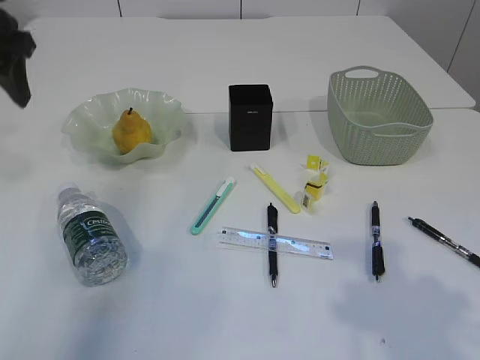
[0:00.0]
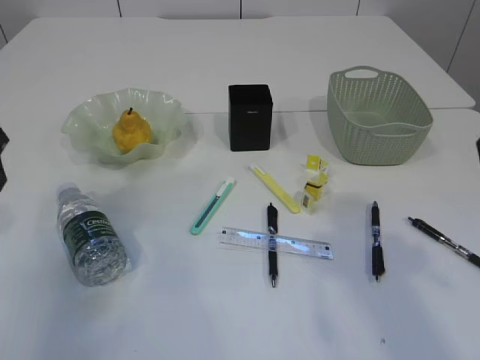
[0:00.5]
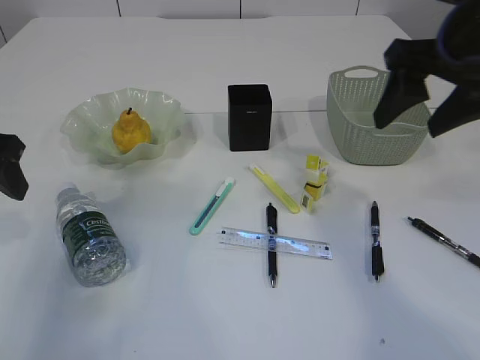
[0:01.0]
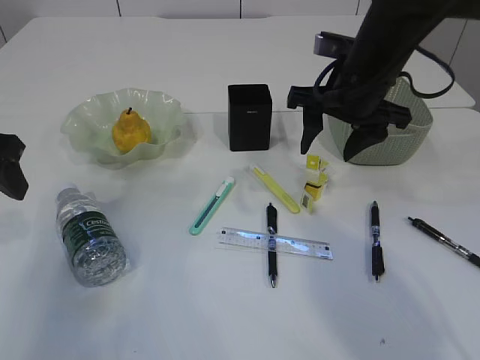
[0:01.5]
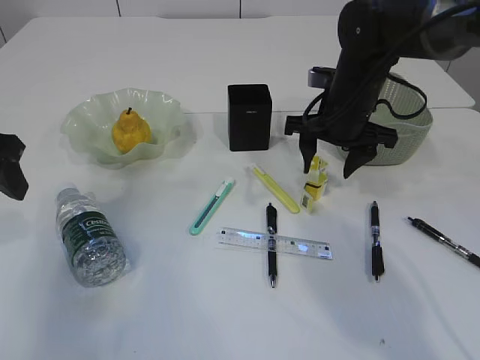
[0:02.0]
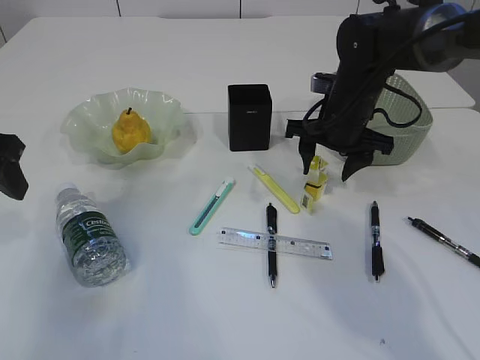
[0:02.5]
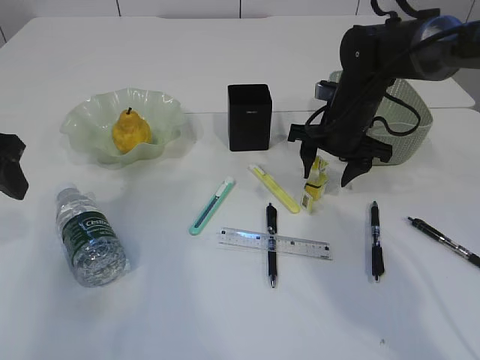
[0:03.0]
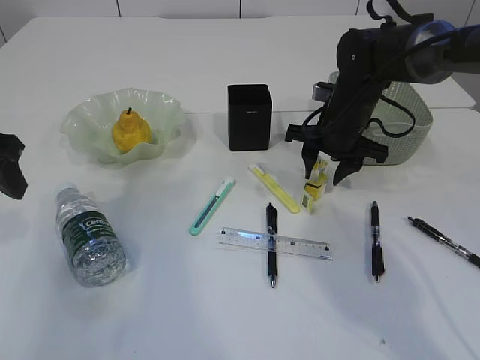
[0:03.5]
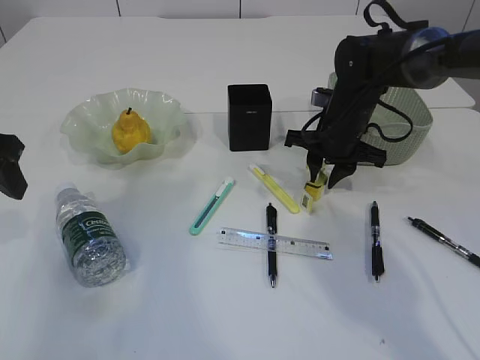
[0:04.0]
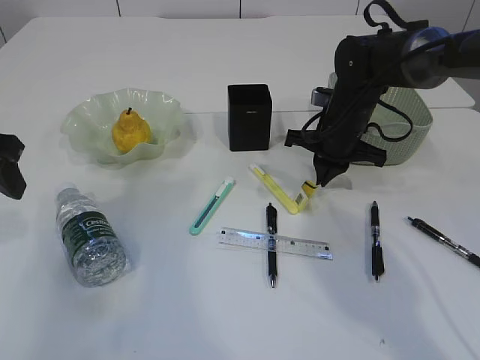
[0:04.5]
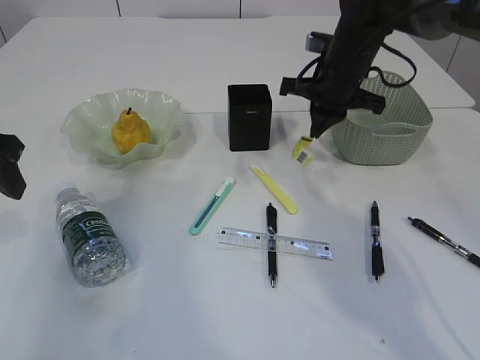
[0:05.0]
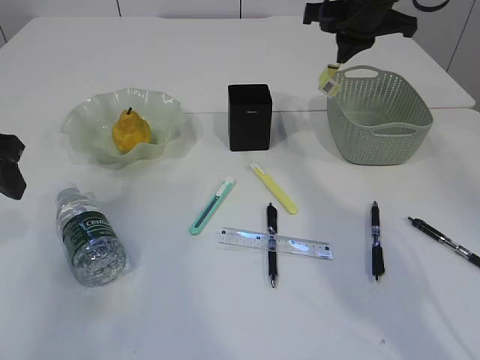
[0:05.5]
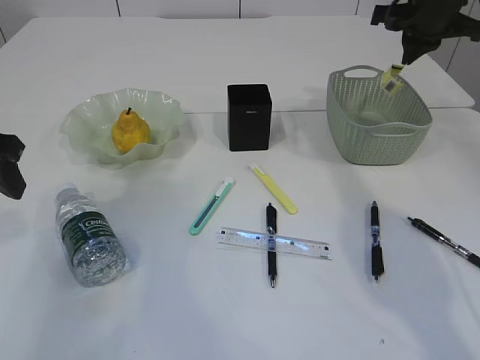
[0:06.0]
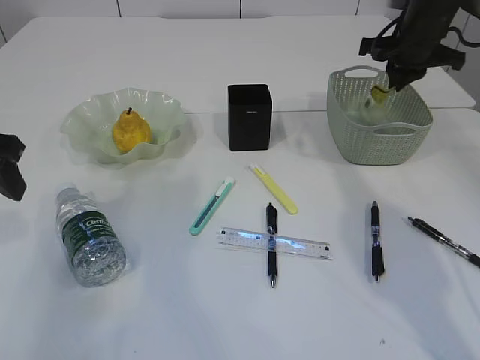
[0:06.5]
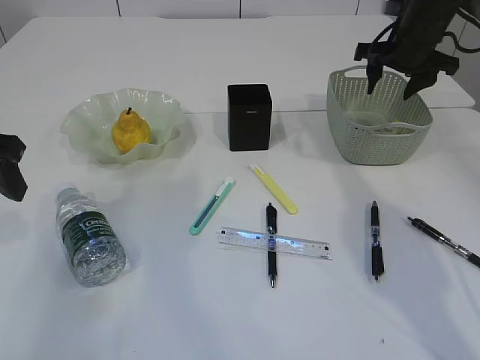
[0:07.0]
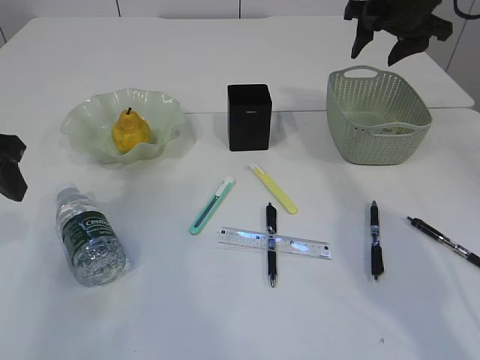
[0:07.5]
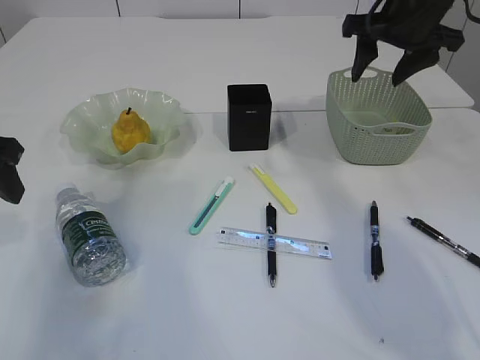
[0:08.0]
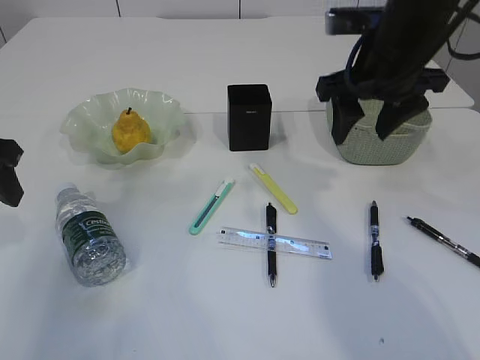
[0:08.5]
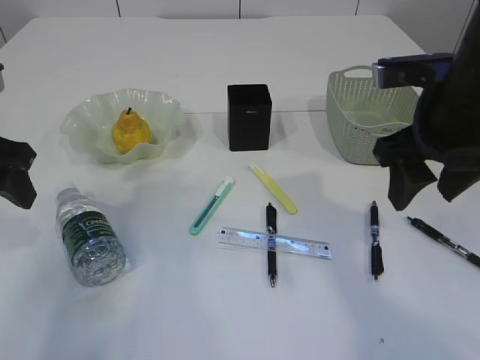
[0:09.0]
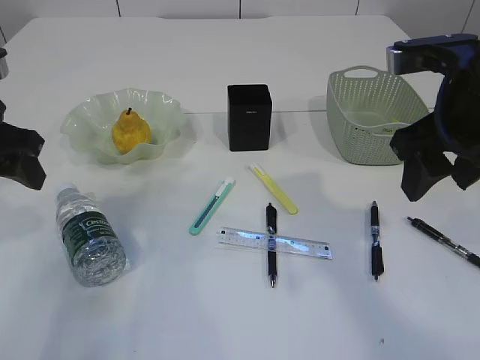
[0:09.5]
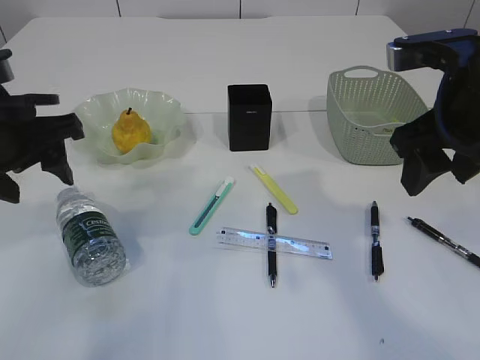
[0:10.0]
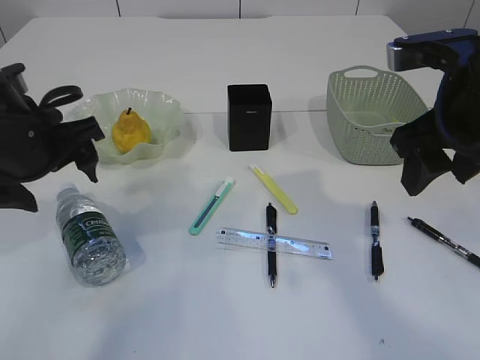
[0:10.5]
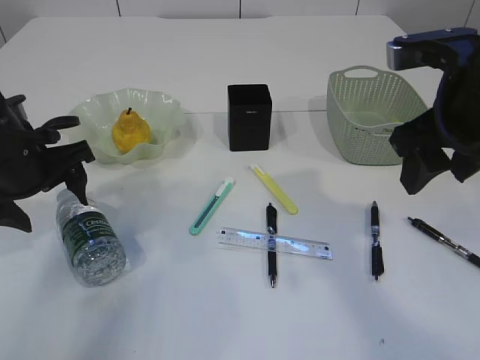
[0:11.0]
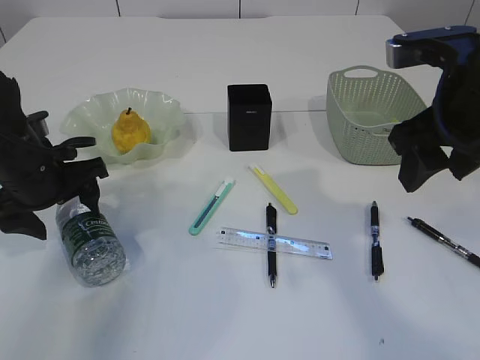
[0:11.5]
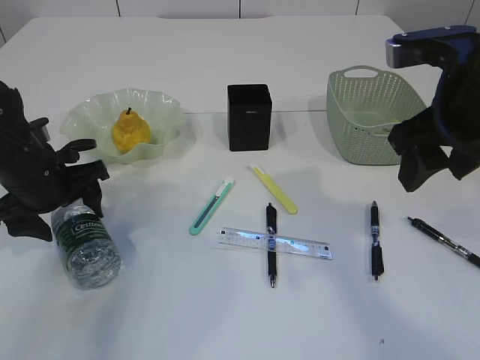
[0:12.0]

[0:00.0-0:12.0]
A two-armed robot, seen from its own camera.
Step, 0.0 to 5.0 s: Pick up the waste paper.
Step, 5.5 to 8.0 s: Place the waste paper in the basket.
0.0 to 2.0 s: The left gripper heads backward and downward, covering roughly 10 cm, while the right gripper heads forward and downward, covering about 30 cm.
2.0 to 4.0 s: The right gripper changes place by some 5 cm, and closes up.
4.0 to 6.0 s: The right gripper is displaced upward and to the right by approximately 20 cm.
6.0 to 8.0 s: The right gripper travels to the left and backward by some 5 cm, and opens its fingers.
8.0 to 10.0 s: The right gripper moves backward, about 15 cm; the left gripper is displaced to the right by approximately 5 cm.
10.0 to 12.0 s: The left gripper goes some 10 cm downward and forward.

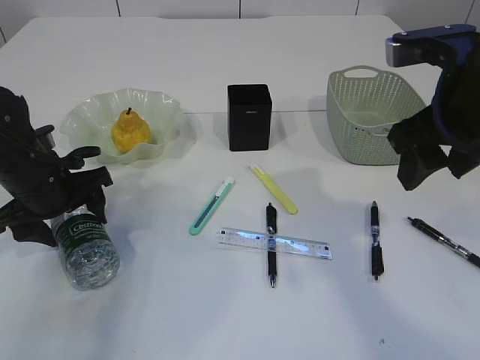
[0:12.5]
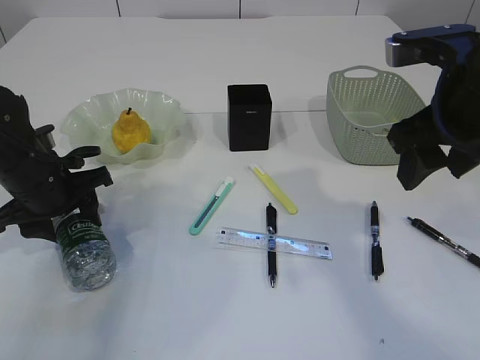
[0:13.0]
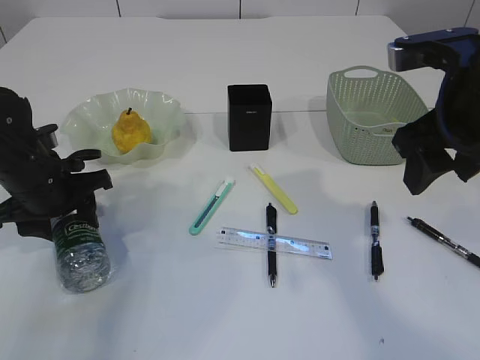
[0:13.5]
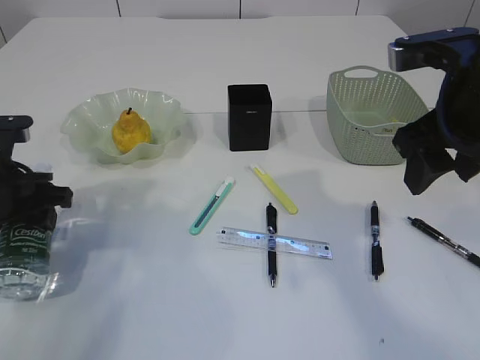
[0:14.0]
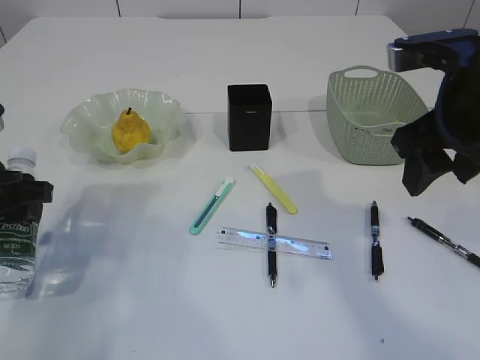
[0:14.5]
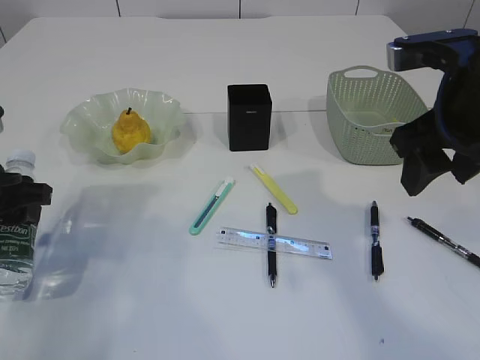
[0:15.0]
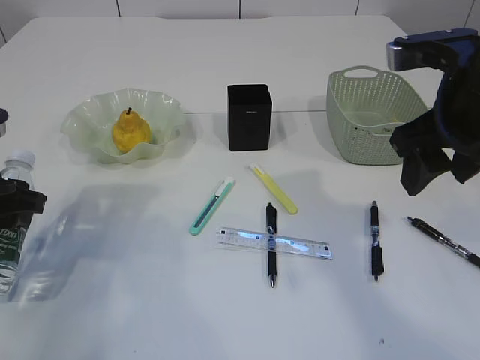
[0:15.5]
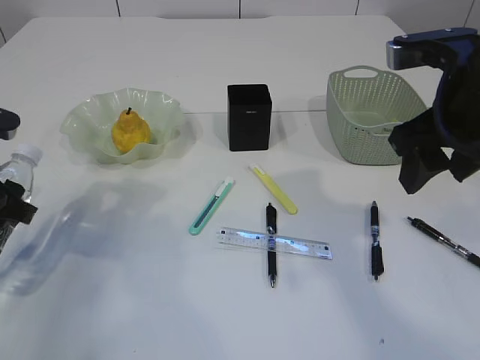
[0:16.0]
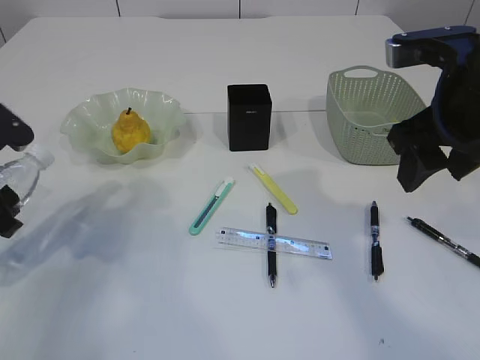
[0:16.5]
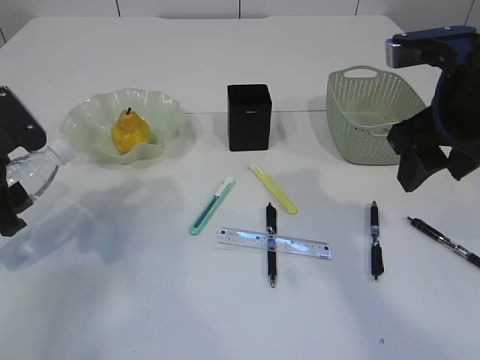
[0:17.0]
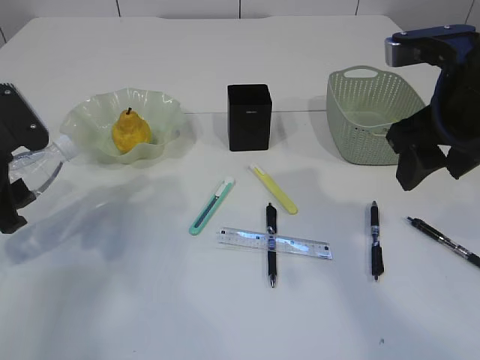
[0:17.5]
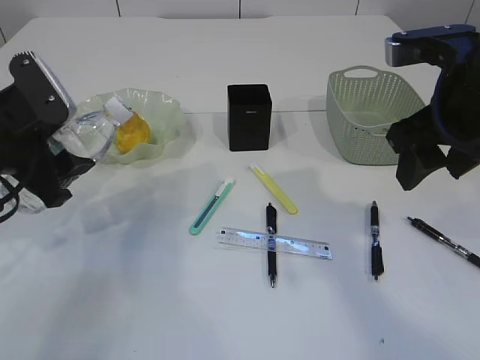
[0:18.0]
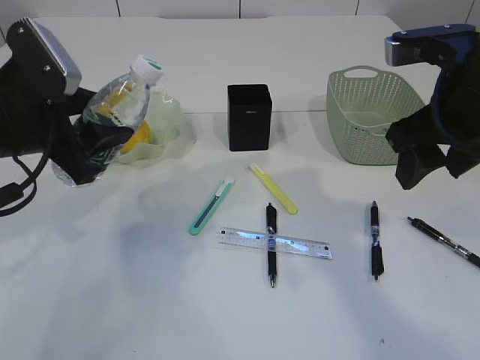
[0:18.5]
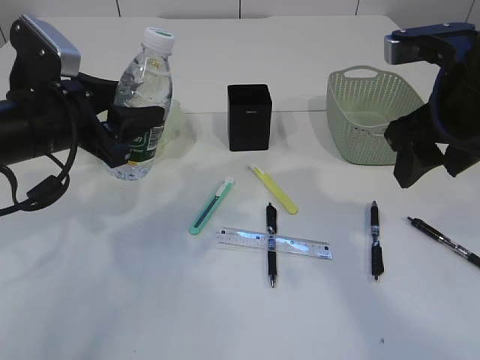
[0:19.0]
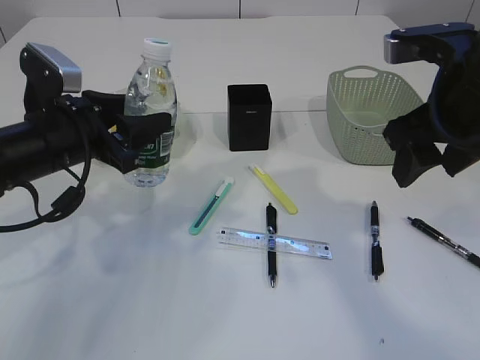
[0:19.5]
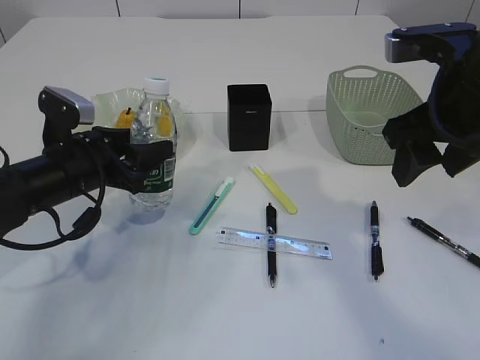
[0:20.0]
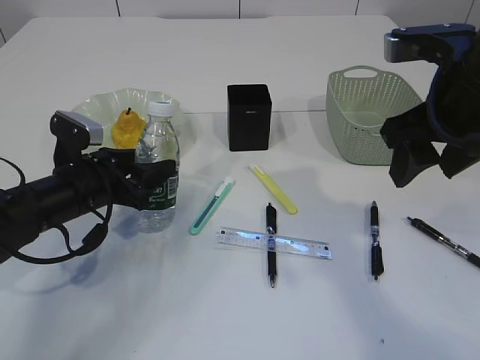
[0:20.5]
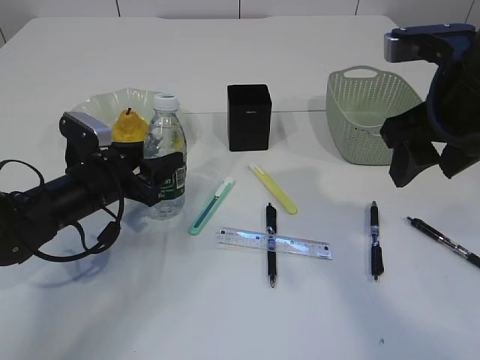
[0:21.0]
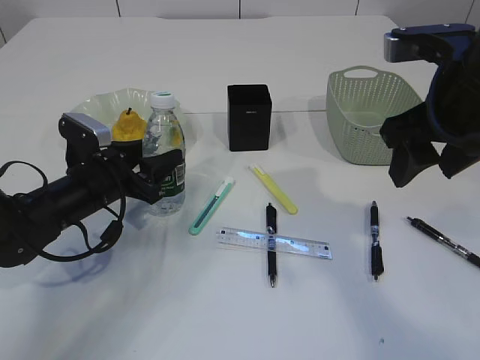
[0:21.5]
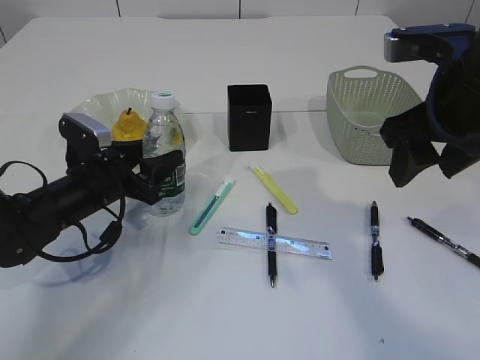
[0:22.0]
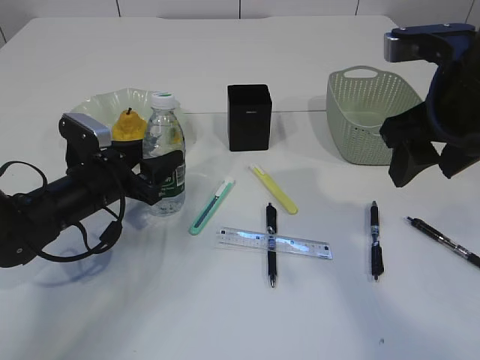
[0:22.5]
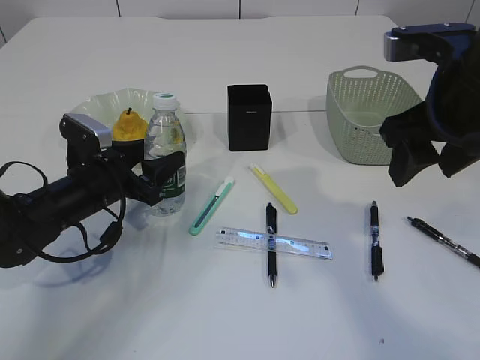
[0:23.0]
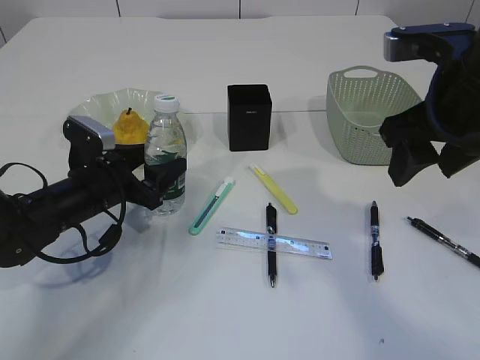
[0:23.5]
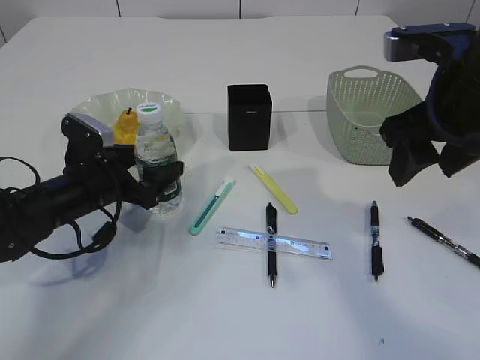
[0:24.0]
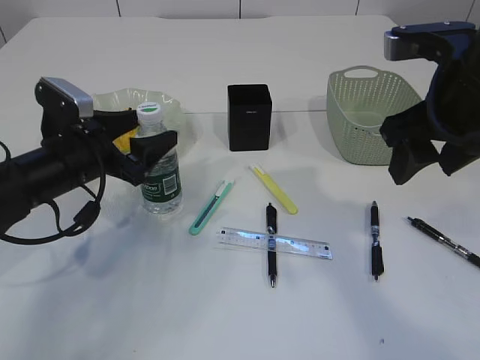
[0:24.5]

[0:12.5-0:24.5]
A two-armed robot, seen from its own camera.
12.5 to 14.5 s: The left gripper shifts some 5 cm backward.
16.5 to 18.5 s: The left gripper travels to the right by roughly 5 cm.
18.5 to 20.5 s: The left gripper heads downward, covering some 15 cm.
20.5 to 22.5 s: The grippers move only a little.
22.5 to 24.5 s: The left gripper moves upward, some 5 cm.

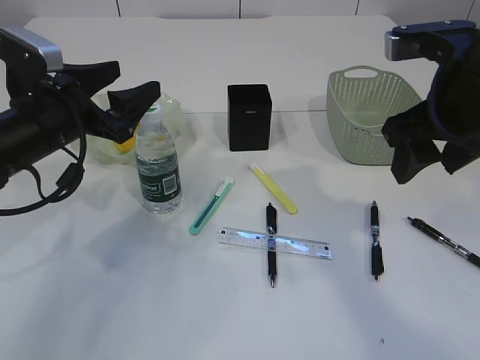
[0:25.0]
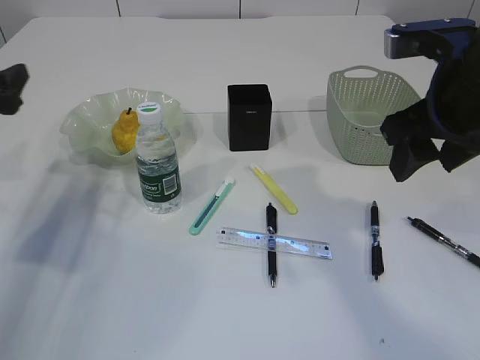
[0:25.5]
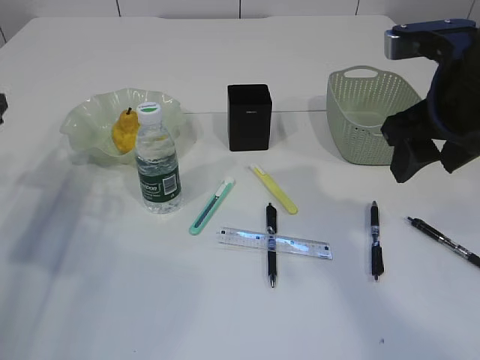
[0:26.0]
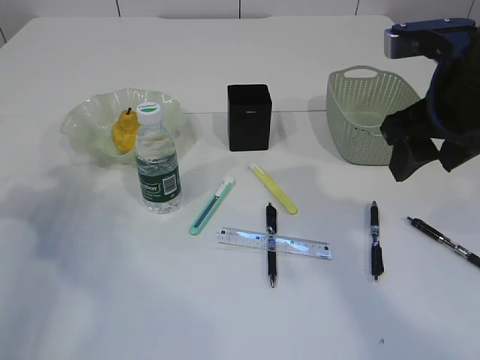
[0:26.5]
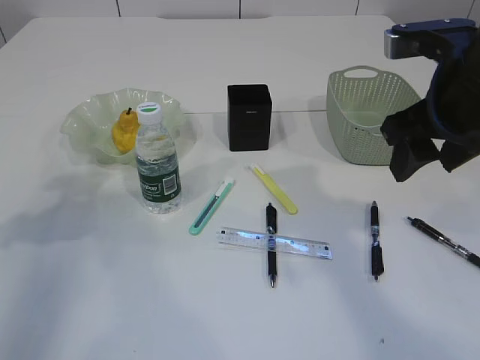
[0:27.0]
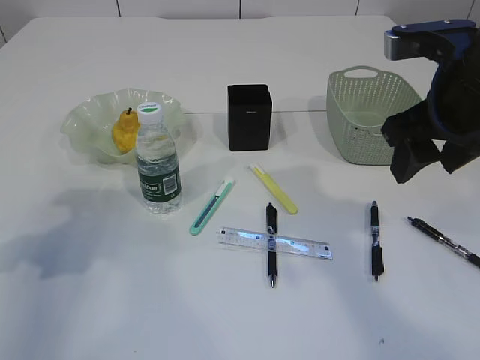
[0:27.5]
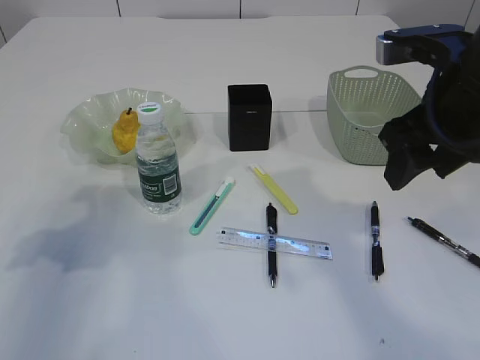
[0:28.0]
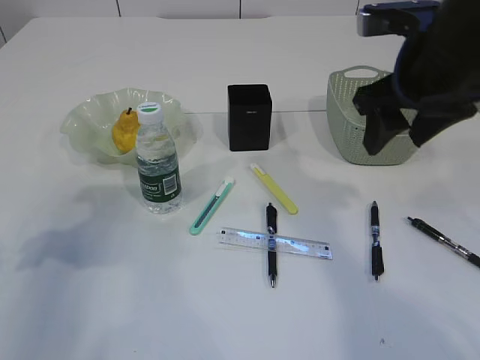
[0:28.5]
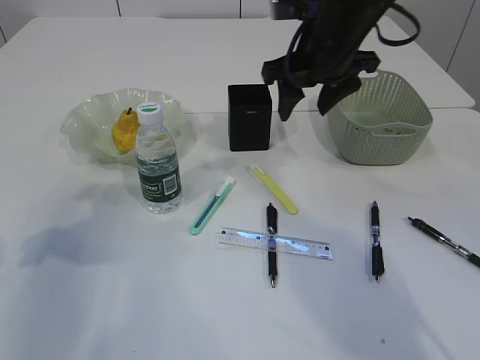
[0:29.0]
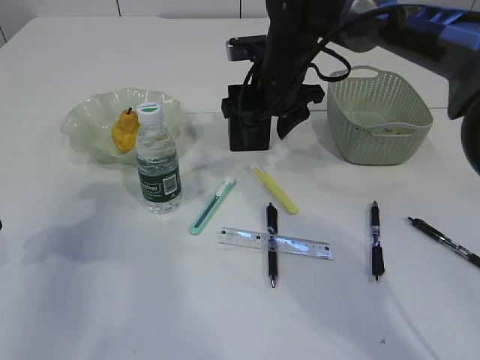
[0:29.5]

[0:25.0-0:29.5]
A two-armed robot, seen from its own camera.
25.0 to 27.0 s: The left gripper goes roughly 15 cm to the left.
27.0 to 29.5 s: The left gripper shifts by about 5 cm; the right gripper shifts approximately 25 cm forward, to the left and downward.
